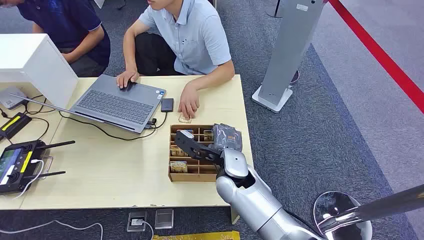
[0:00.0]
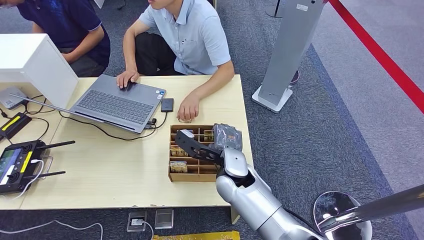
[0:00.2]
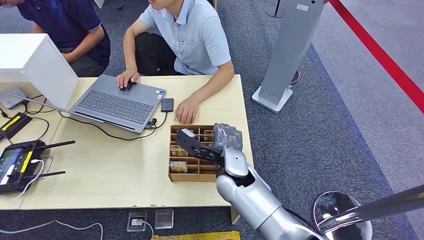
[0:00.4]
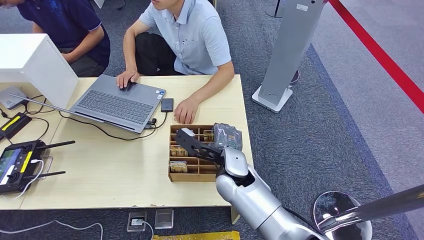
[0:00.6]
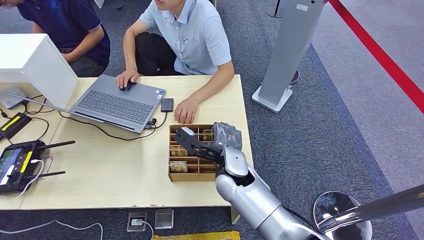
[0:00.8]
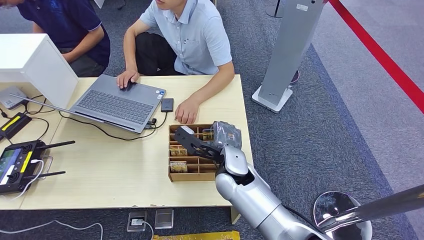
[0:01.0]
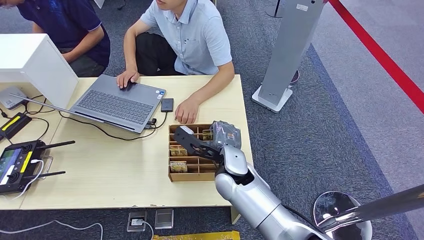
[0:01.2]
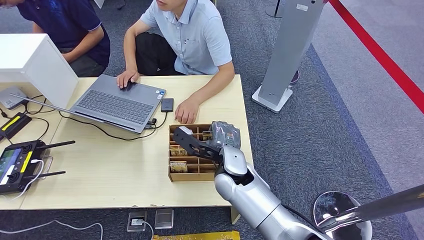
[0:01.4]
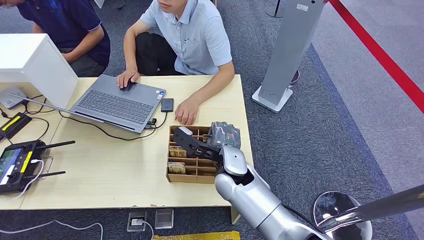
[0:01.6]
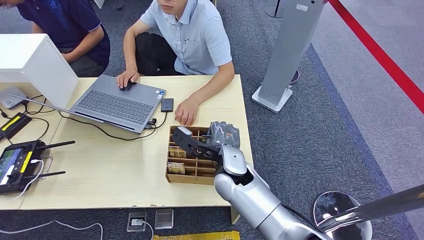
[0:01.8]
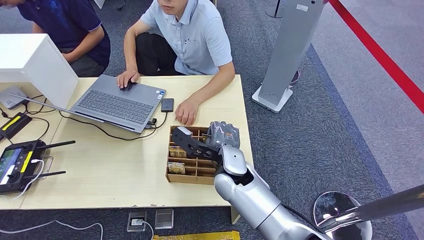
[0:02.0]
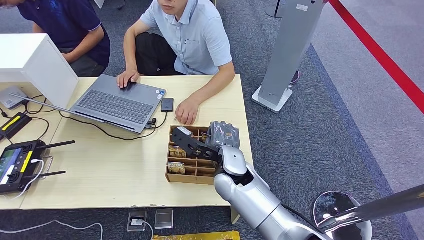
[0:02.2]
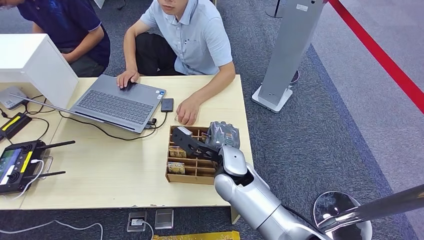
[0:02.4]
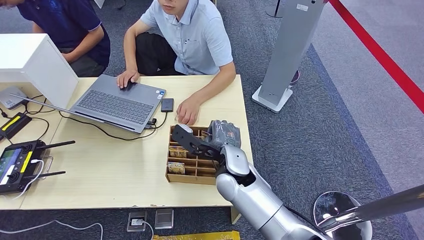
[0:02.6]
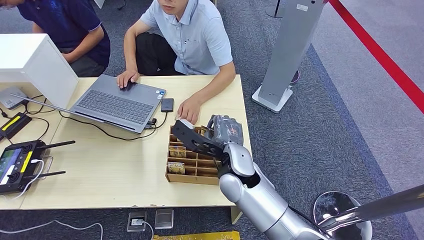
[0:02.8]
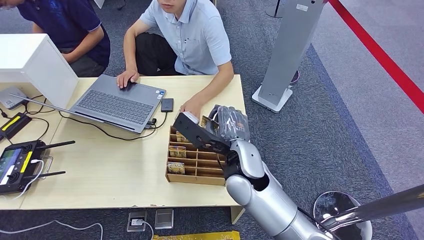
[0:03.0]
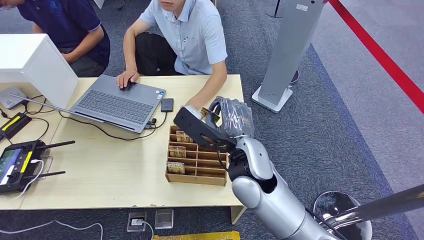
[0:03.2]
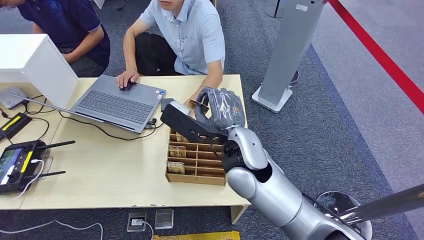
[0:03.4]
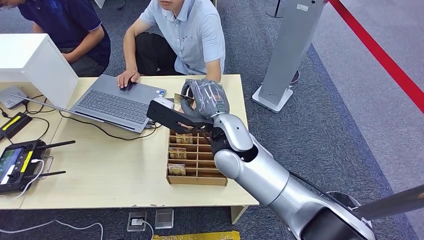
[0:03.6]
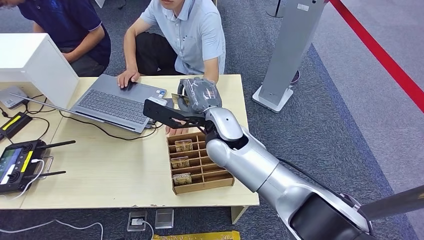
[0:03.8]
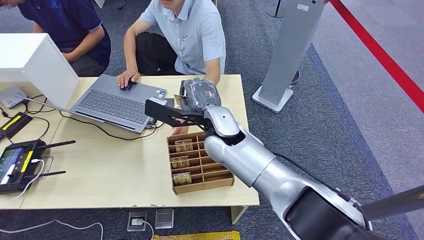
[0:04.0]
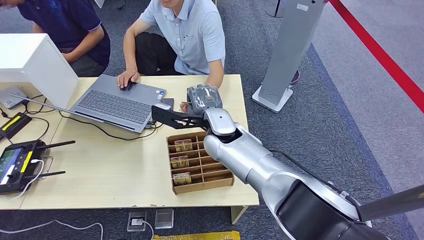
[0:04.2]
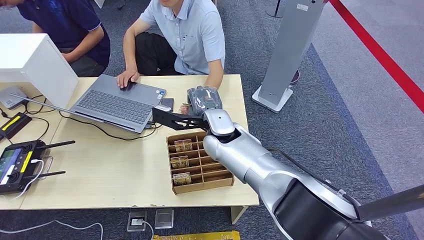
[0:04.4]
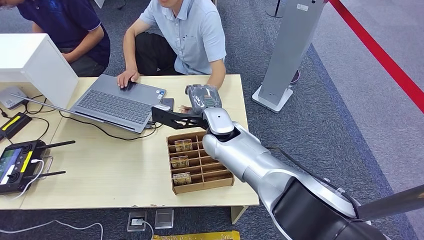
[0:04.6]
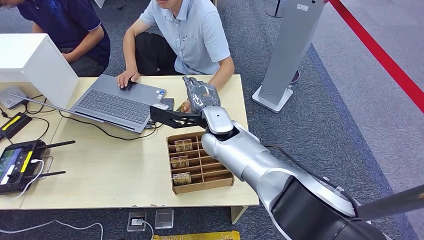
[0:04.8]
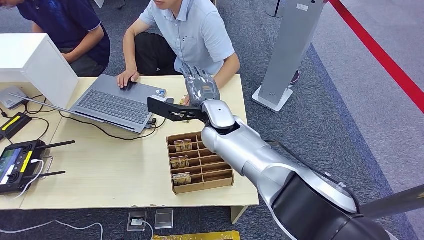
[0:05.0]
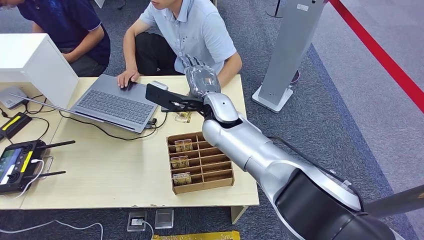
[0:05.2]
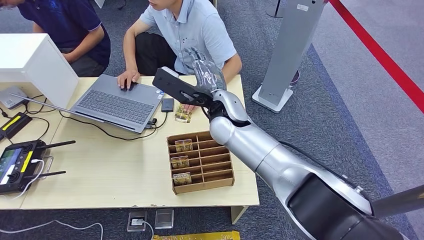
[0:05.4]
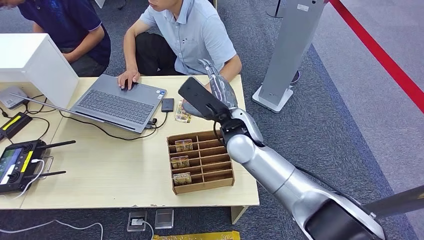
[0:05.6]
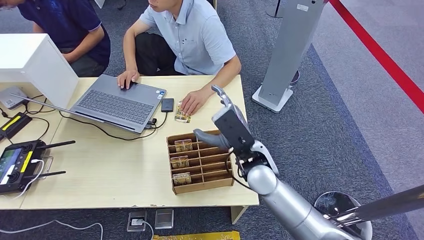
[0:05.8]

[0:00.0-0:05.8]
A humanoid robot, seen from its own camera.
Step, 0:00.0 to 0:03.0: Pick up the room card from the card holder.
Step, 0:03.6 to 0:05.8: Hand the room card to the target.
0:01.4 to 0:02.8: The hands stay close to where they were, moving slightly.
0:02.8 to 0:04.4: The right hand travels forward by approximately 10 cm.
0:04.4 to 0:05.8: The right hand goes approximately 10 cm to the right and backward.

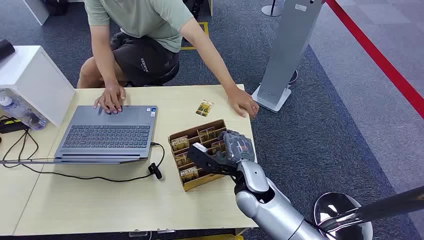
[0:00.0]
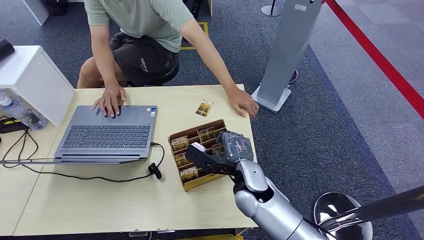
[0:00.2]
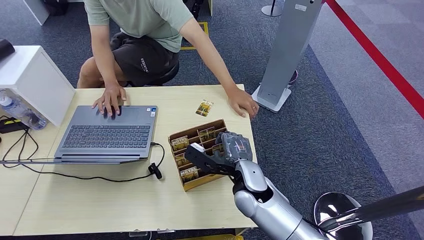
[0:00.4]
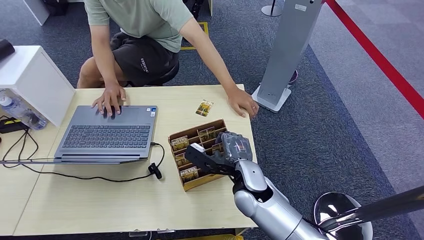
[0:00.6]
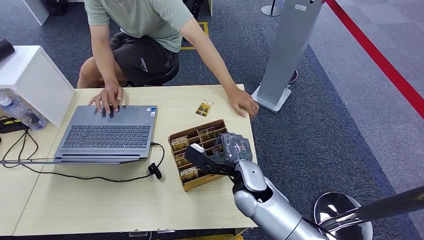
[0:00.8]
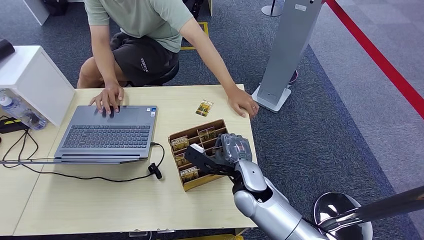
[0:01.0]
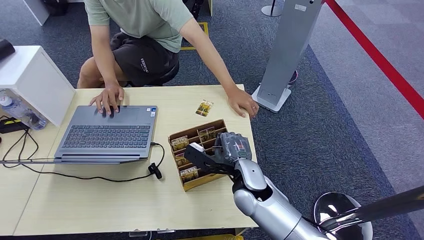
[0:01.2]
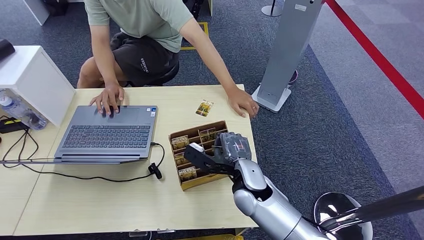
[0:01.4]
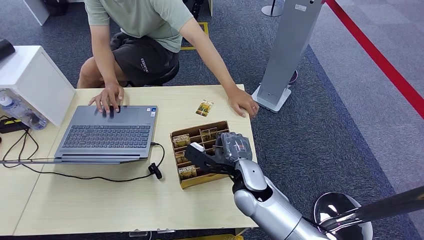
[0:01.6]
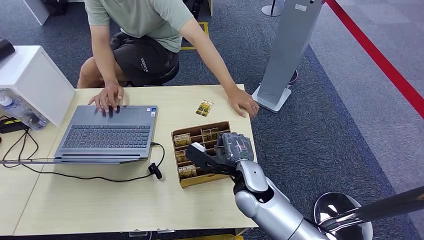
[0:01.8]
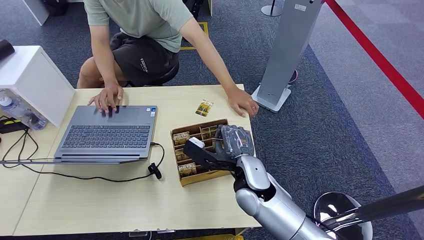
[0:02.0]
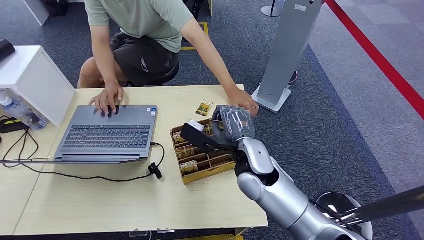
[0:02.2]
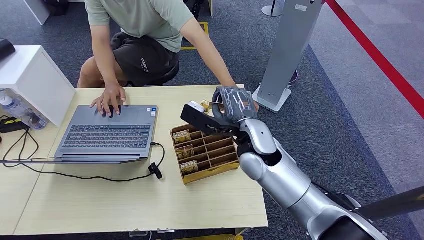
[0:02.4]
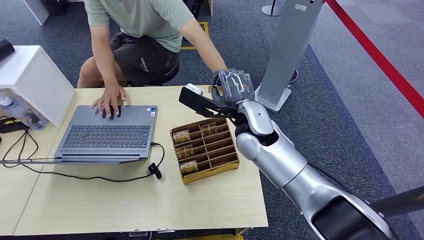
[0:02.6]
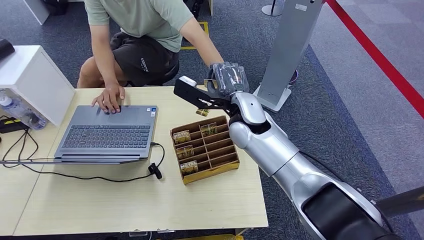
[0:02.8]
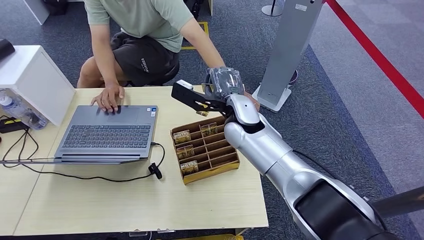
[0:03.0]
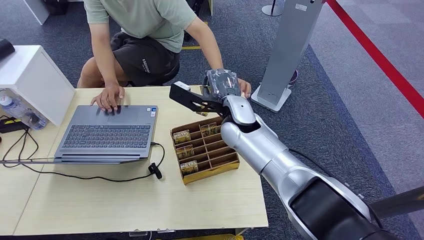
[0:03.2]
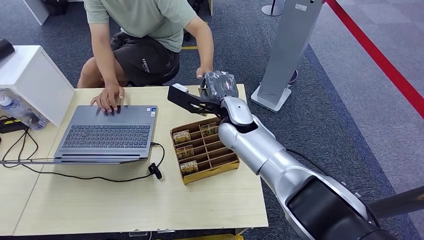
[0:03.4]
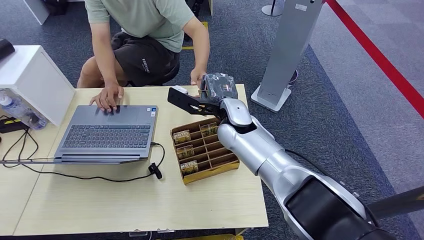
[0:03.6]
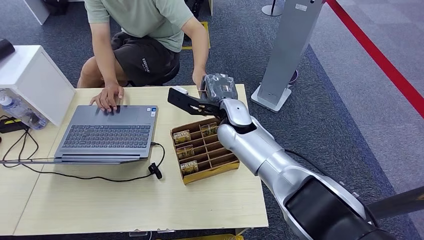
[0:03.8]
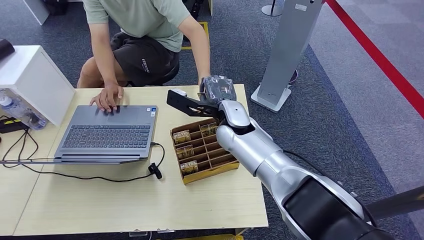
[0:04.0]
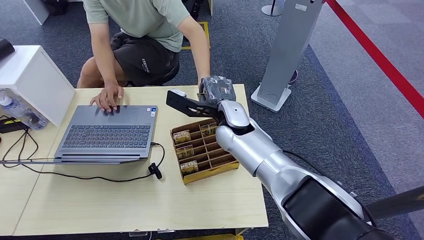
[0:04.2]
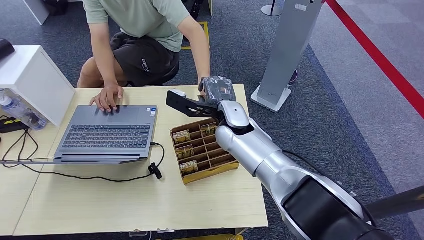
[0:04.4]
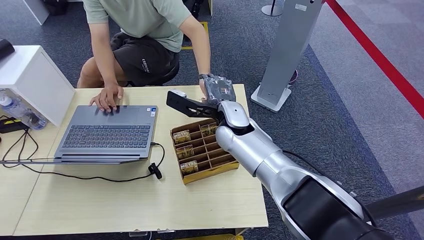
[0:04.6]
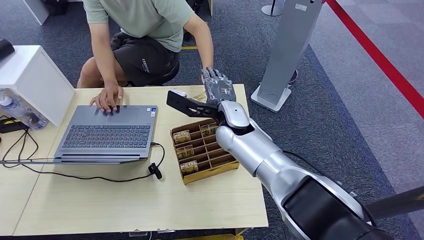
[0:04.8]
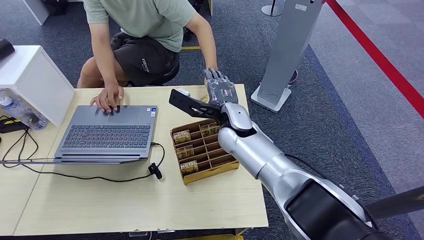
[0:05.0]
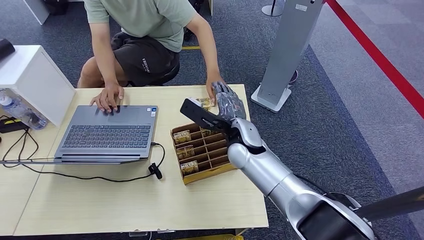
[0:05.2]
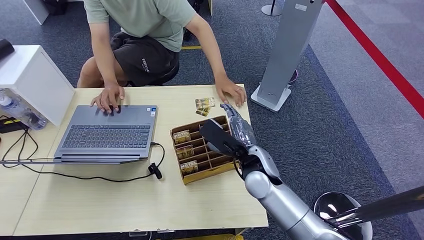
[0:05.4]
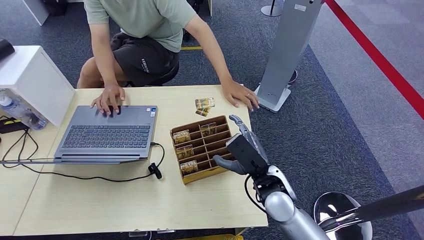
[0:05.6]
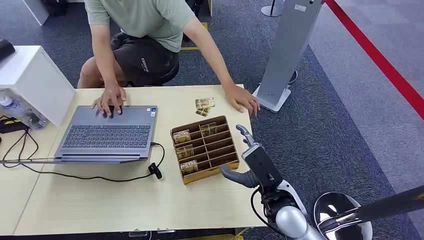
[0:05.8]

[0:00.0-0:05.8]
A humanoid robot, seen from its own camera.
Step, 0:00.0 to 0:02.2: Pick up the room card from the card holder.
Step, 0:02.4 to 0:05.6: Hand the room card to the target.
0:01.4 to 0:02.8: The right hand moves upward and forward, about 15 cm.
0:02.8 to 0:04.4: The hands make only small movements.
0:04.4 to 0:05.8: The right hand is displaced backward, to the right and downward by approximately 25 cm.
